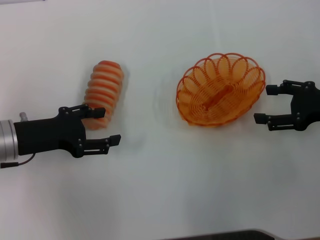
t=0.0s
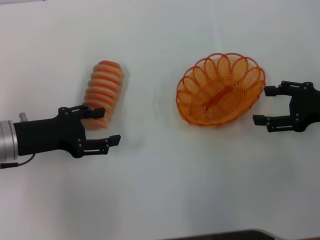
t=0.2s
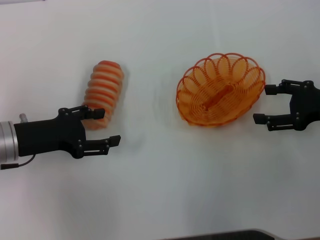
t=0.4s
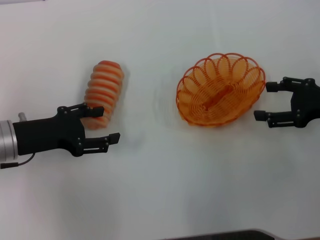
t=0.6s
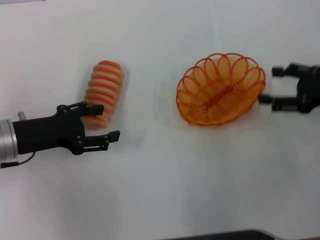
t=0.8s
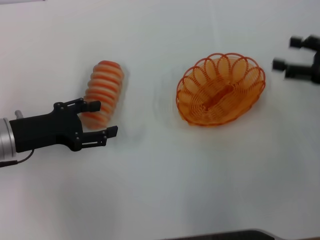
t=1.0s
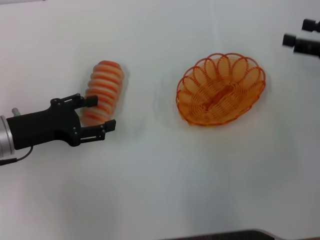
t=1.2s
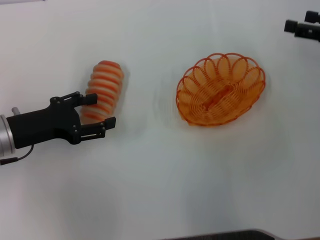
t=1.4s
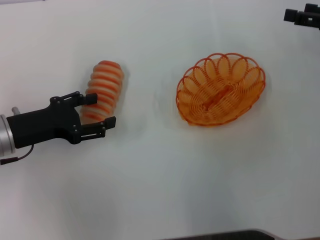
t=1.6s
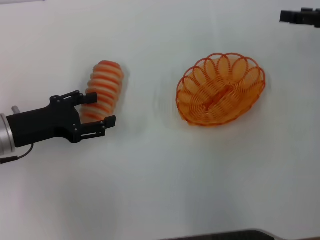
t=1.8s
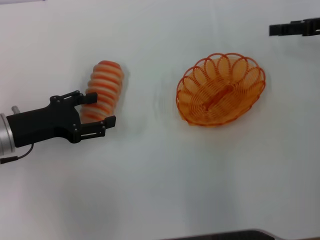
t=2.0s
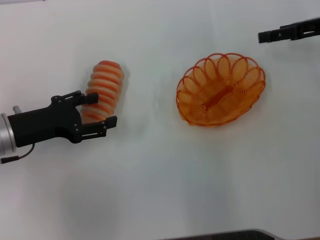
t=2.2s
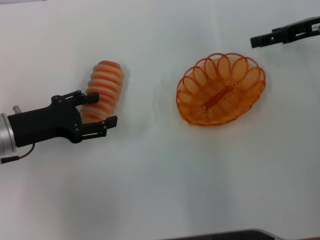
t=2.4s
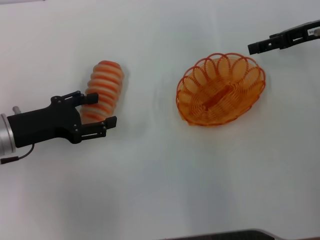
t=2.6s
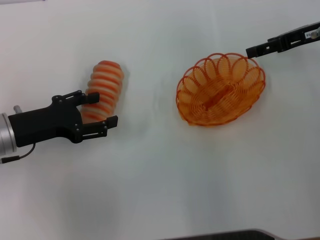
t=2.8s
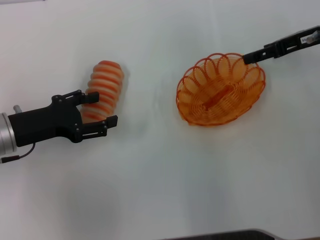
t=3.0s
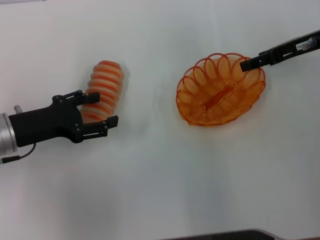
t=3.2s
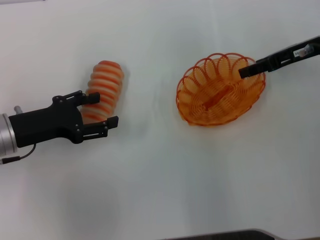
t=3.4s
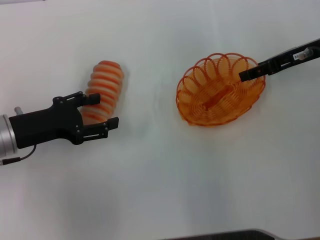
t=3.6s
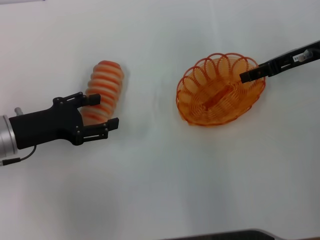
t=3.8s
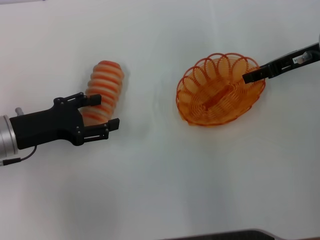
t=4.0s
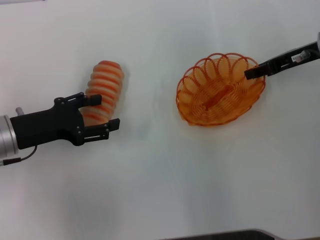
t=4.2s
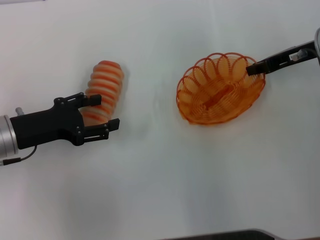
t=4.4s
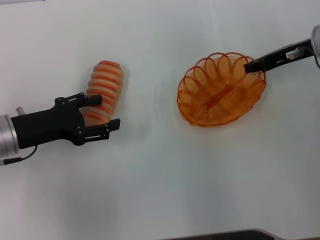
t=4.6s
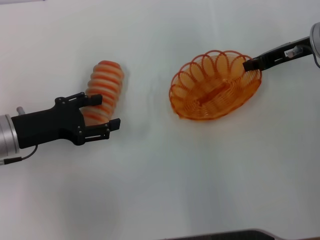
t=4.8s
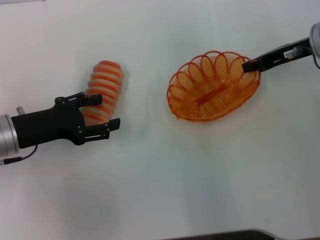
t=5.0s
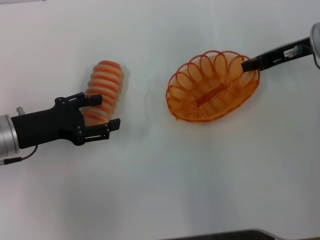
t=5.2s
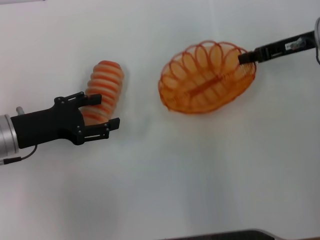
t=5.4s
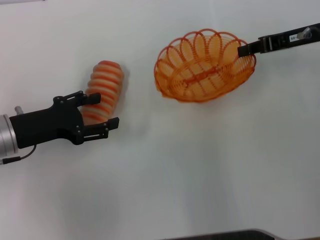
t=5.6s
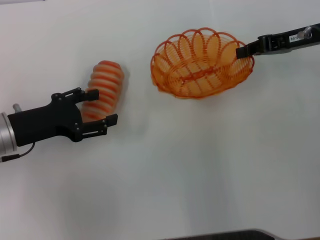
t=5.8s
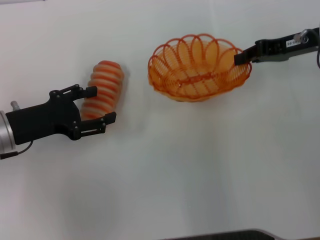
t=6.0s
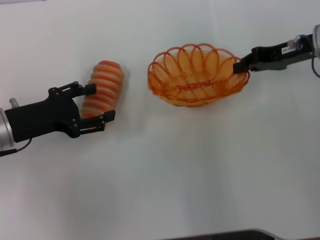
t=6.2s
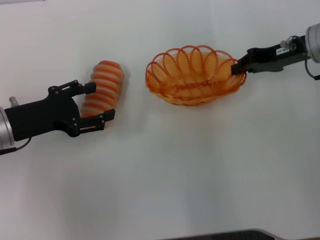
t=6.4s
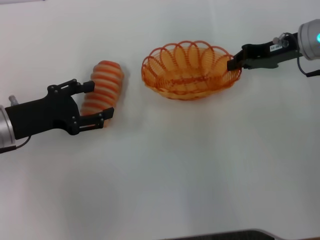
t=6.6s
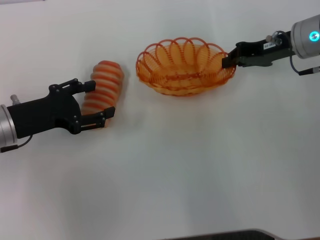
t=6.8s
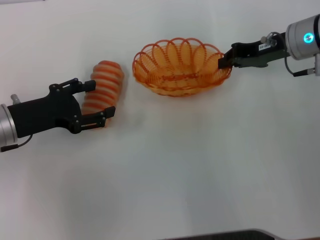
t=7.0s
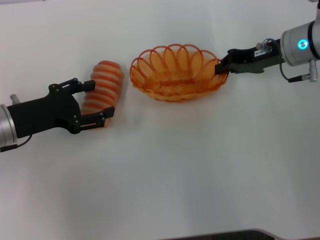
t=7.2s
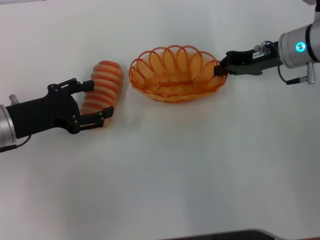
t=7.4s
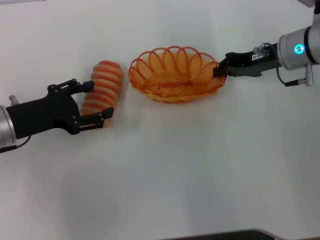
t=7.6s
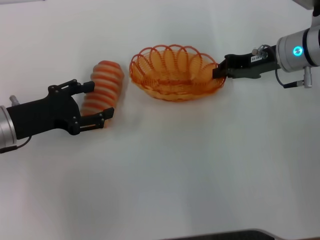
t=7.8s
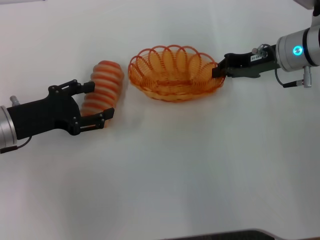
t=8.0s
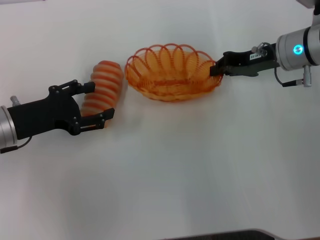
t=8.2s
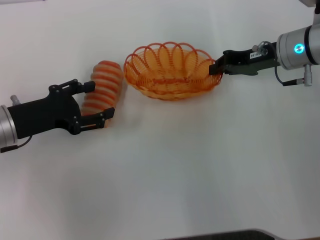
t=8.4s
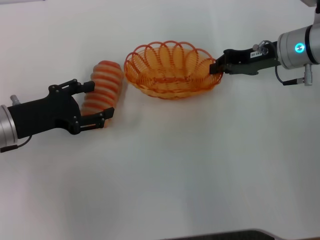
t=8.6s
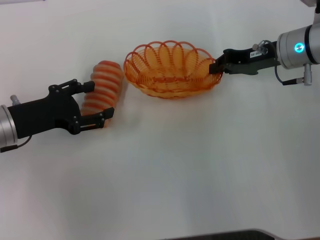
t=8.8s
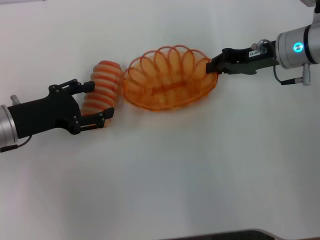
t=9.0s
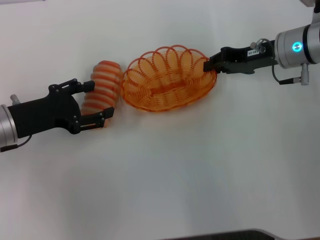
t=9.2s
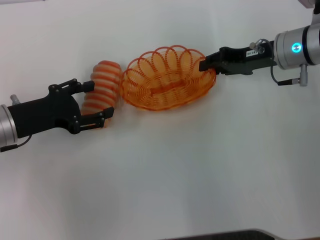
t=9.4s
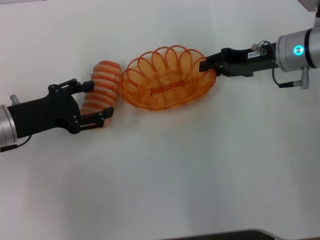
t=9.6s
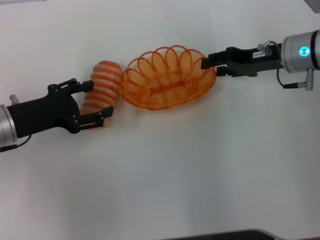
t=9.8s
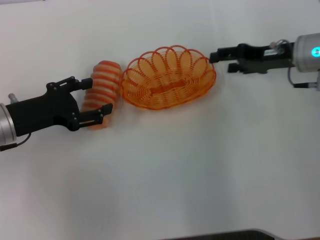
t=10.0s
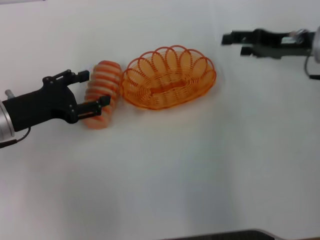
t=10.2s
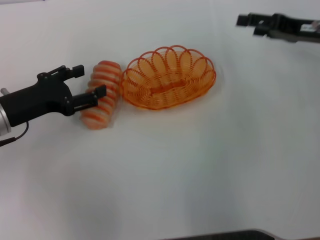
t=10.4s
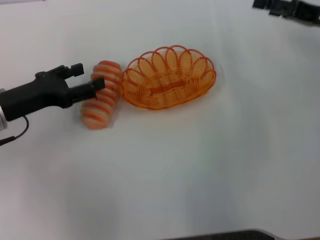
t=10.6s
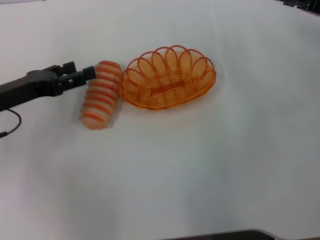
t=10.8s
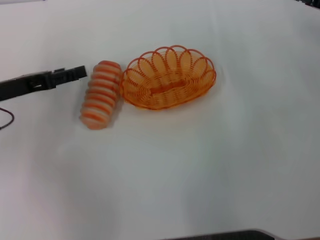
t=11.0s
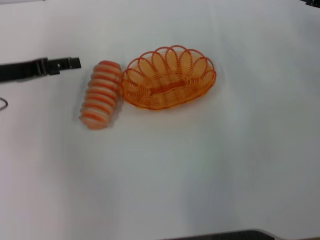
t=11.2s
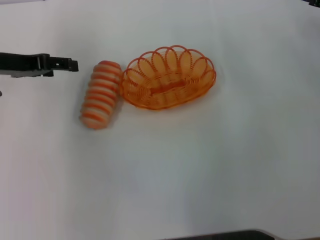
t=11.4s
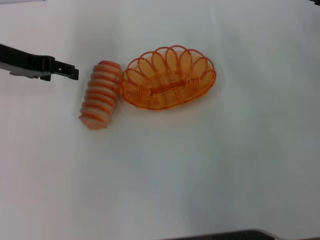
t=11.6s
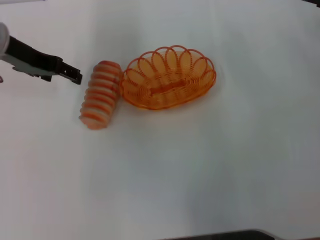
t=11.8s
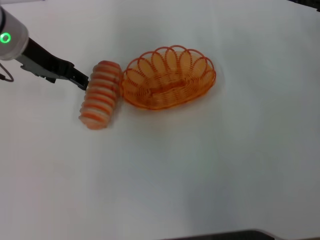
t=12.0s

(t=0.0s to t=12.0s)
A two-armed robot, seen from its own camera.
Step, t=0.0s - t=5.4s: Pick up the basket with the right gripper.
Step, t=5.8s - t=10.2s: Place the basket in the center of view with the right gripper.
t=0.0s - t=1.6s: The right gripper travels forward and upward by approximately 10 cm.
t=1.6s - t=3.0s: The right gripper travels to the left and forward by about 10 cm.
t=3.0s - t=4.4s: The right gripper closes.
t=4.4s - t=6.0s: The right gripper closes its fingers.
t=6.0s - t=7.6s: The right gripper shifts by roughly 5 cm.
t=7.6s - t=9.0s: Both grippers stay about where they are.
t=9.0s - t=10.4s: The right gripper goes some 5 cm to the right, and opens up.
t=10.4s - t=12.0s: The right gripper shifts roughly 5 cm to the right; the left gripper shifts some 15 cm upward, forward and to the right.

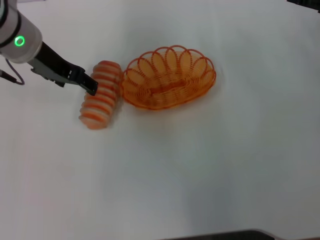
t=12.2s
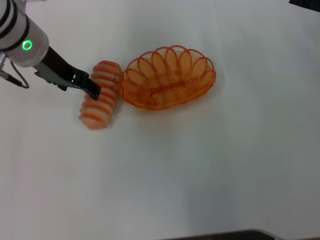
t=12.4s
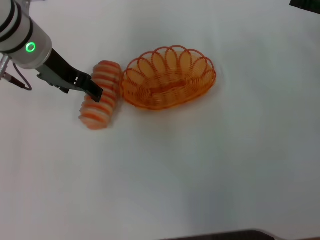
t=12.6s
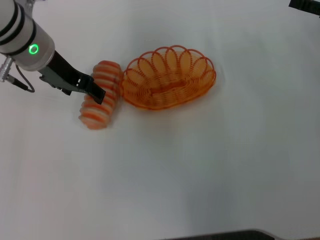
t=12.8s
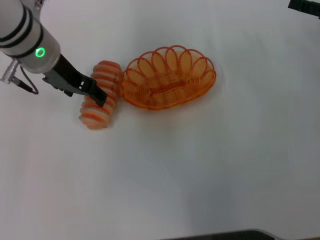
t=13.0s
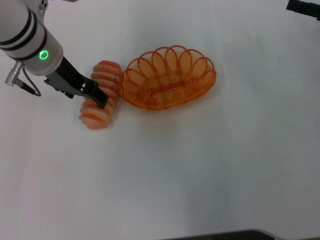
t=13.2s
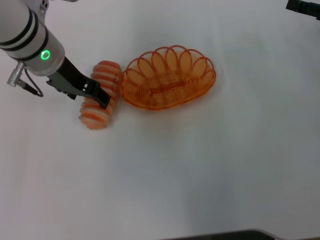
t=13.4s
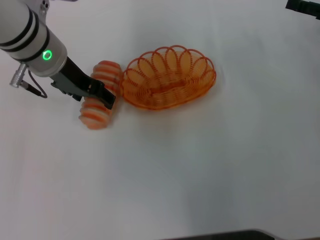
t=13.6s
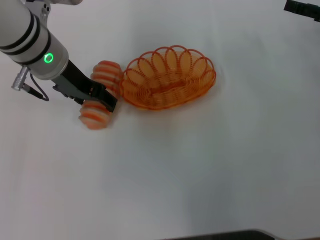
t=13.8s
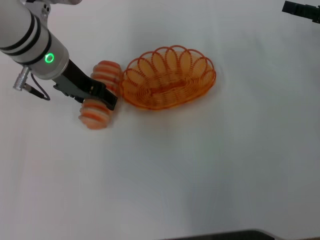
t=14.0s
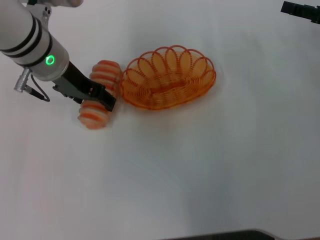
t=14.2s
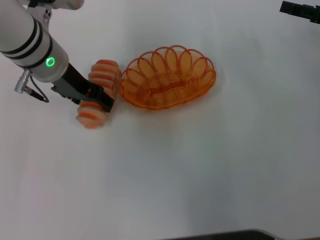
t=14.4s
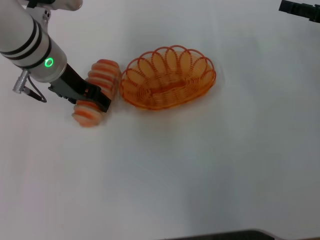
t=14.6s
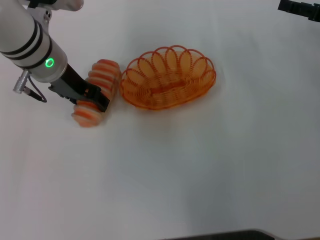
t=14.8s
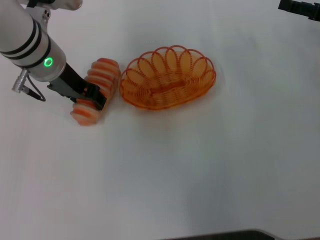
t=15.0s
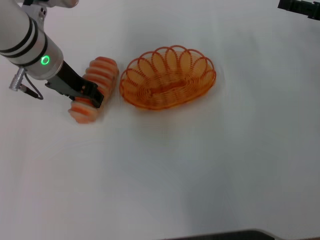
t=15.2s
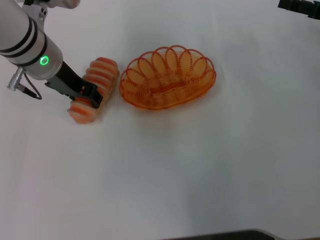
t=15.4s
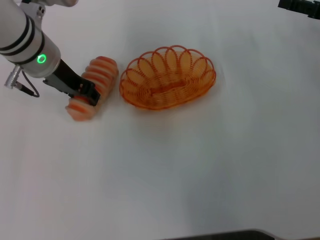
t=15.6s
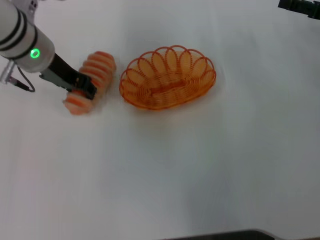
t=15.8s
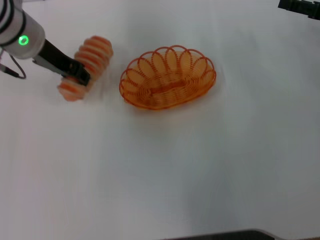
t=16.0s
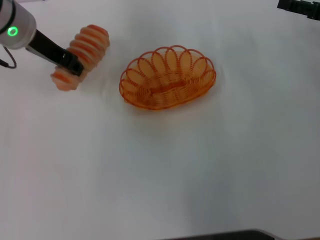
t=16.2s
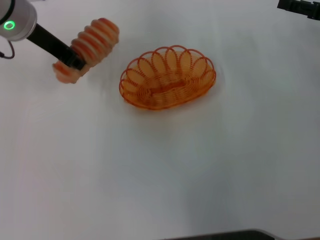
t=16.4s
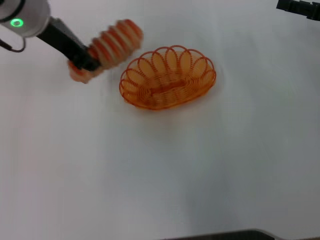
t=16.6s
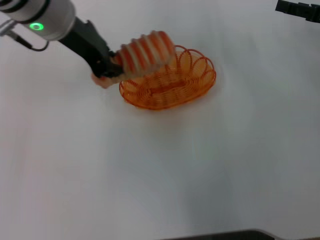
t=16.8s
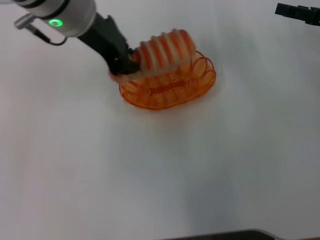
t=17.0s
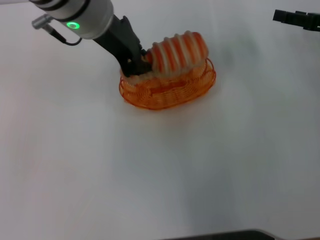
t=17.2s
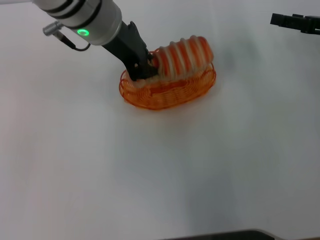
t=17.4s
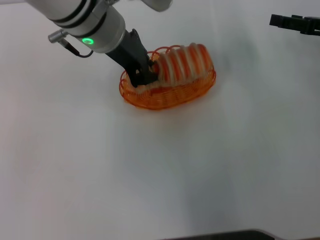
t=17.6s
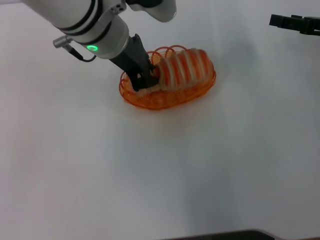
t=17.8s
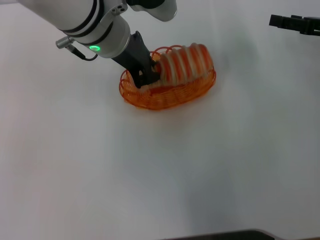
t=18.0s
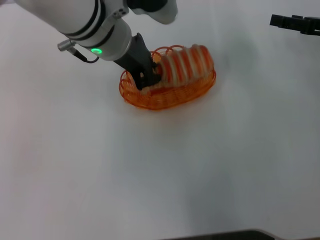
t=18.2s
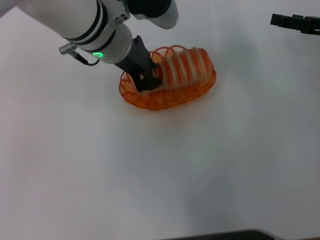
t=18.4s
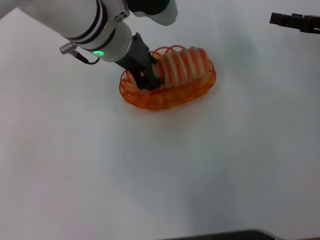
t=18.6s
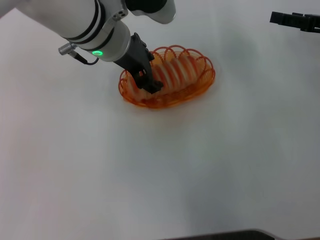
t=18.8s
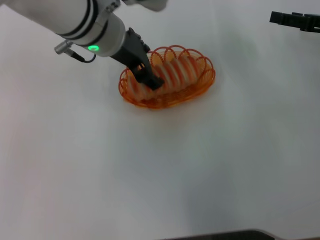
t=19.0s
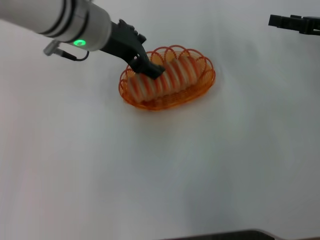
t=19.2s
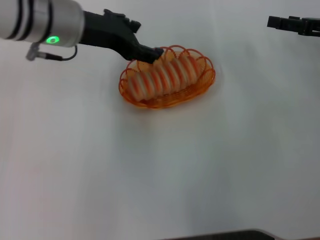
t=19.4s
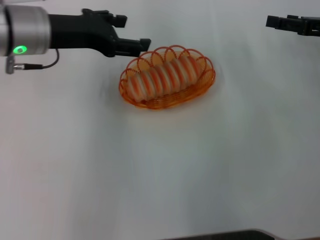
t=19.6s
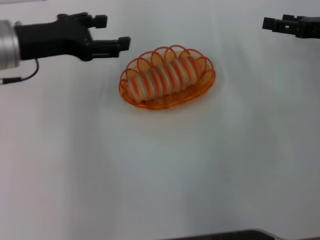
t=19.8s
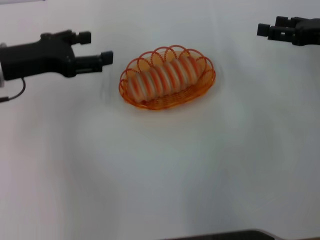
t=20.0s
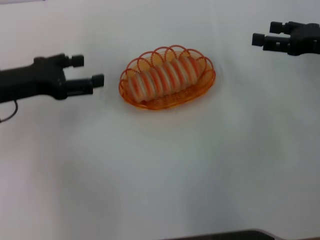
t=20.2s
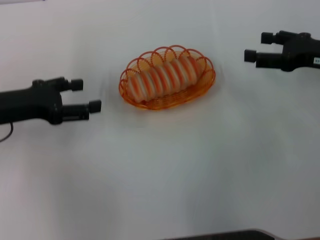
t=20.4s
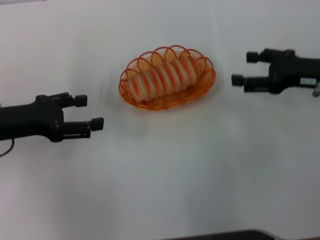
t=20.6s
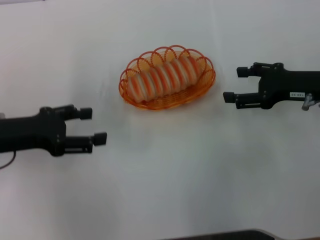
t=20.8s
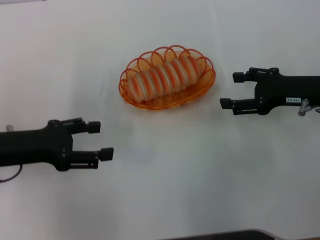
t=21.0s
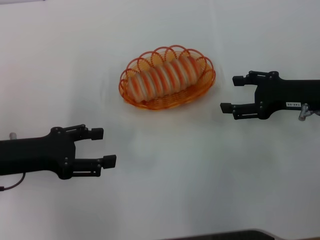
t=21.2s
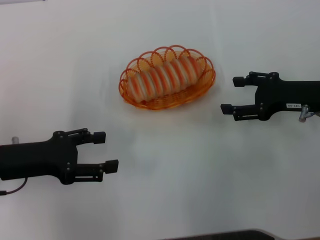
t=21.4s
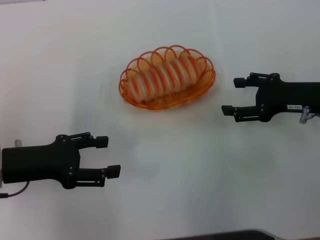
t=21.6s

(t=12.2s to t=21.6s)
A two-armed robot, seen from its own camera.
Step, t=12.2s - t=16.2s: Pick up the long bread with the left gripper.
Step, t=16.6s - t=19.6s: Place the long bread into the basket with the left gripper.
t=12.2s - t=13.8s: There are only small adjustments of the grippers.
t=13.8s - t=15.4s: The left gripper closes up.
t=15.4s - t=17.0s: The left gripper moves upward and to the right, roughly 10 cm, and closes up.
t=17.0s - t=18.4s: The left gripper moves downward, some 5 cm.
t=18.4s - t=20.0s: The left gripper travels to the left by roughly 20 cm, and opens.
t=20.0s - t=21.6s: The right gripper ends up roughly 10 cm from where it was, while the left gripper is displaced backward and downward by approximately 10 cm.

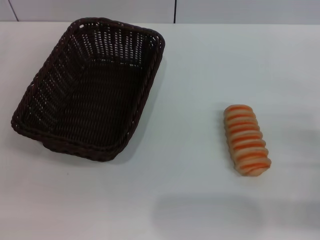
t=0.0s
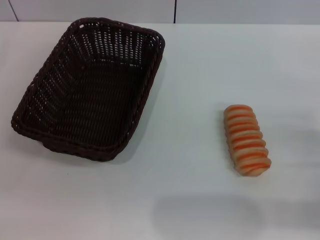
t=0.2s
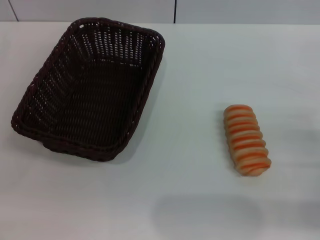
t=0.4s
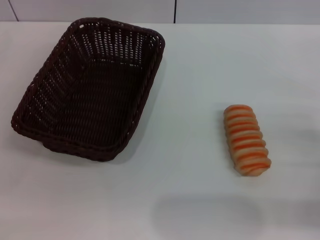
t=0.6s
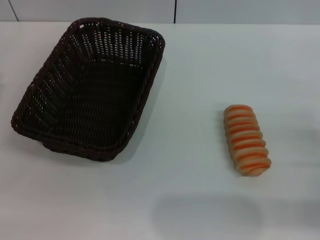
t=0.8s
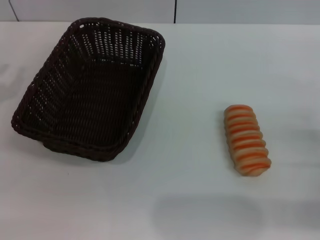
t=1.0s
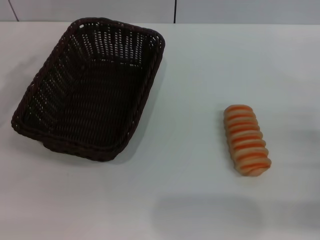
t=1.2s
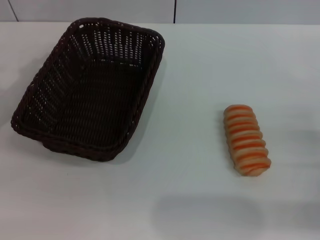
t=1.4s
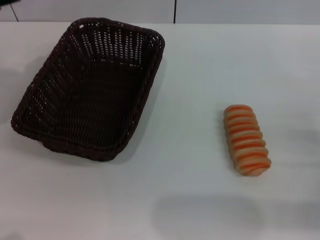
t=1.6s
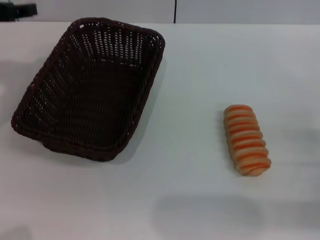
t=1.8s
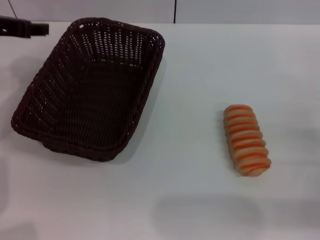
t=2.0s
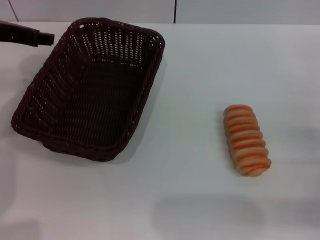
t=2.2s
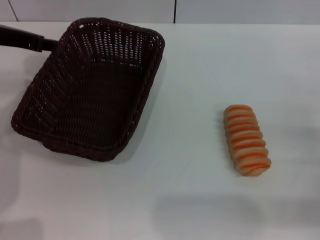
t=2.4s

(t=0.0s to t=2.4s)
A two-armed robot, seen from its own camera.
t=1.2s - t=2.4s: The left gripper shifts about 15 cm to the right and forward.
